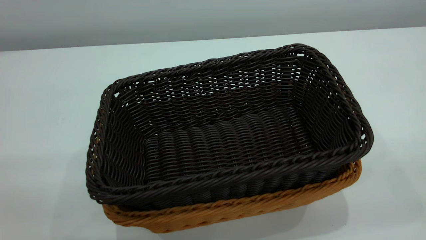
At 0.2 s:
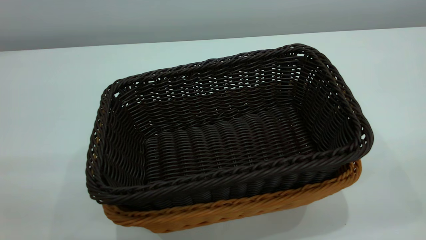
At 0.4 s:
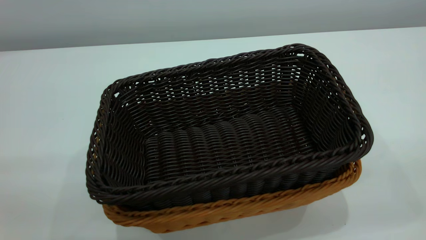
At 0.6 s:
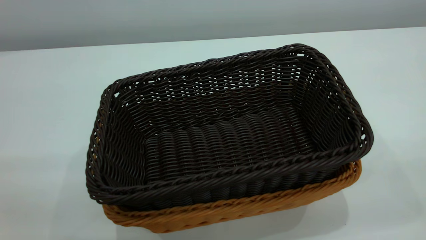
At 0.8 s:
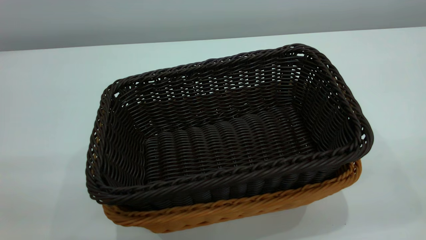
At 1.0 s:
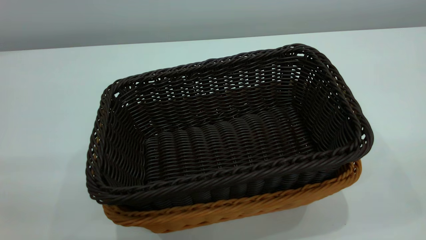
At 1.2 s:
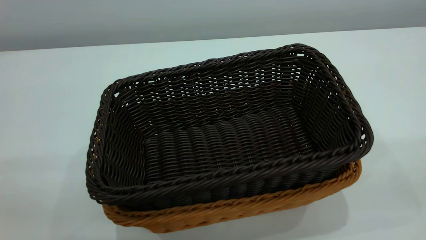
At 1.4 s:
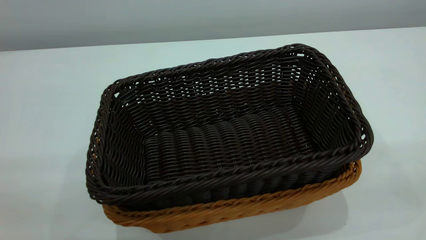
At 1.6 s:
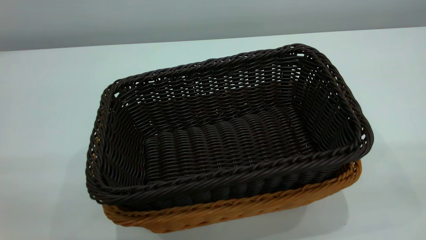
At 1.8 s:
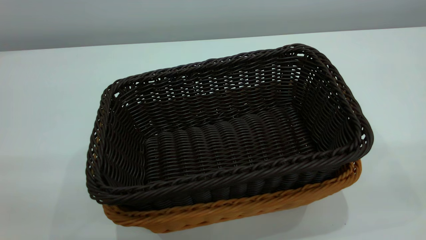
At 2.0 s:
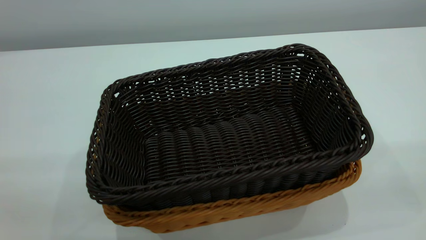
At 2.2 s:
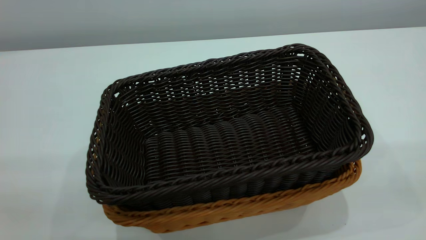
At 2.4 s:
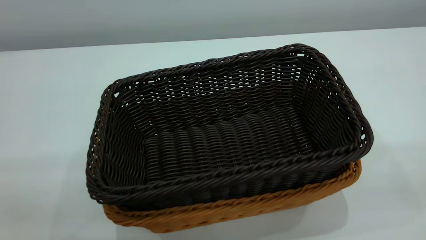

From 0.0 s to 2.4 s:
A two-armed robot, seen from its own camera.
Task of the whole recording: the left gripper grasp the brown basket and place it in the center of the table, the right gripper grasp the black basket and place it inside the brown one.
From 1.2 s to 2.4 s: Both grippers stay about where they are.
